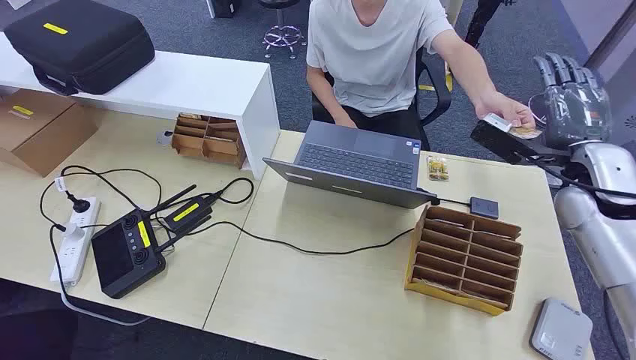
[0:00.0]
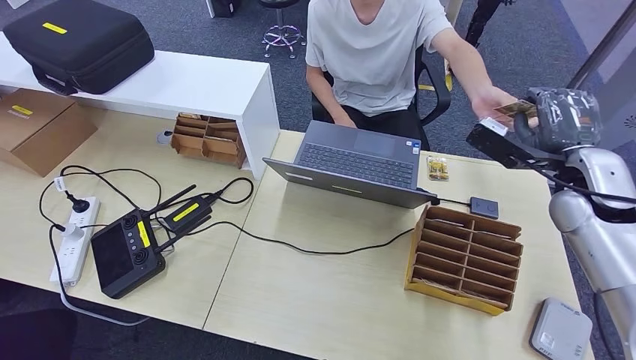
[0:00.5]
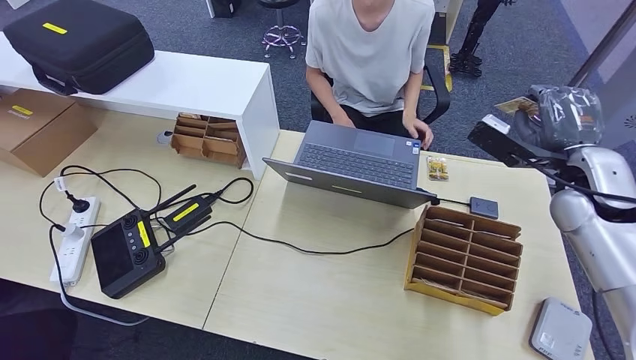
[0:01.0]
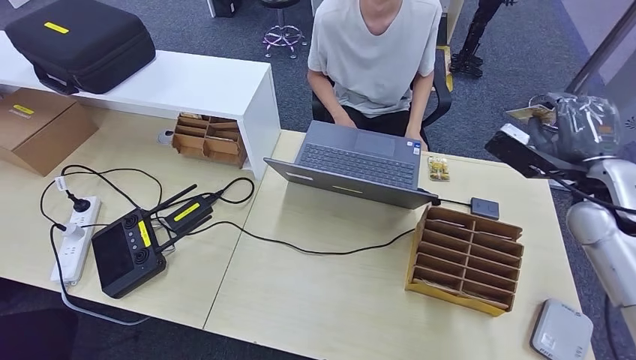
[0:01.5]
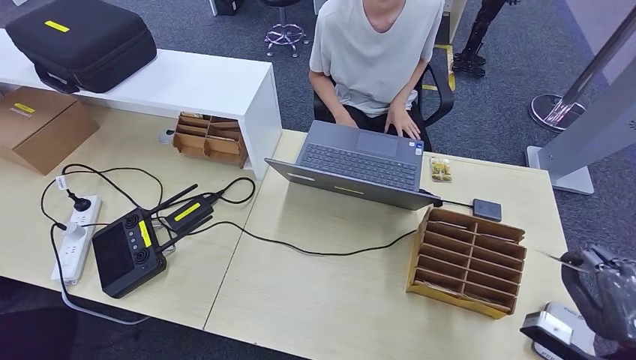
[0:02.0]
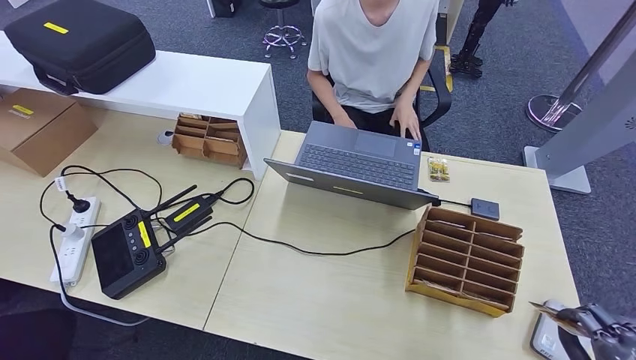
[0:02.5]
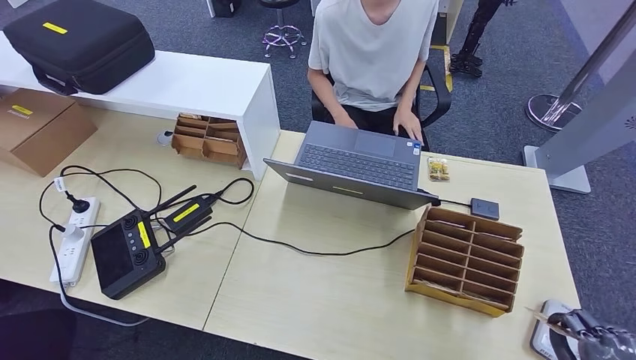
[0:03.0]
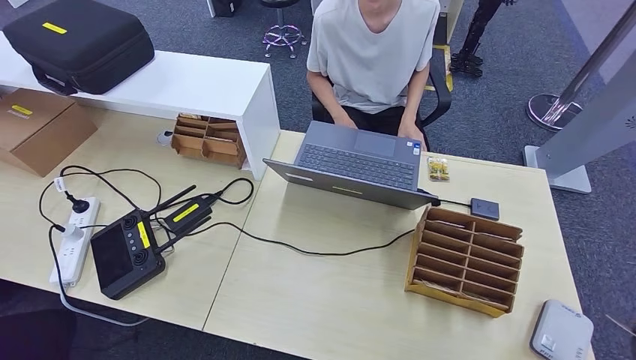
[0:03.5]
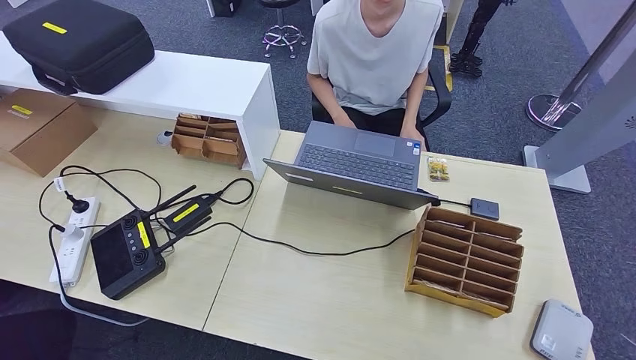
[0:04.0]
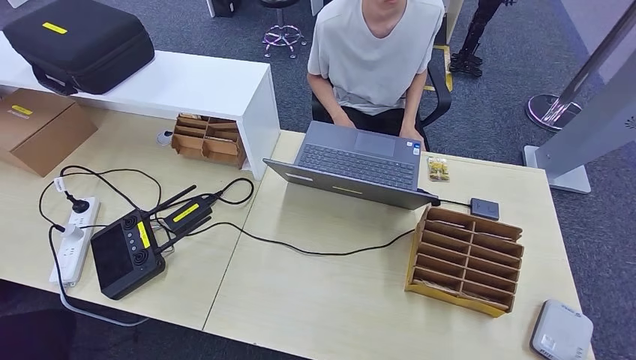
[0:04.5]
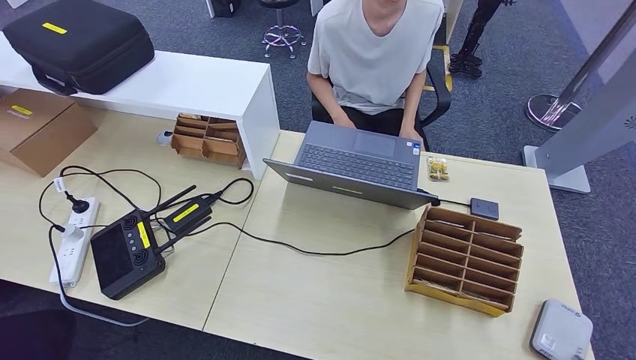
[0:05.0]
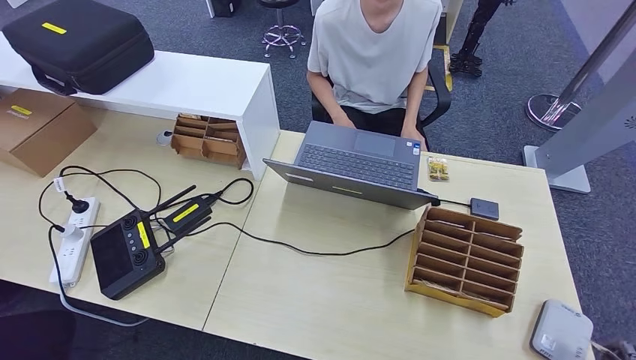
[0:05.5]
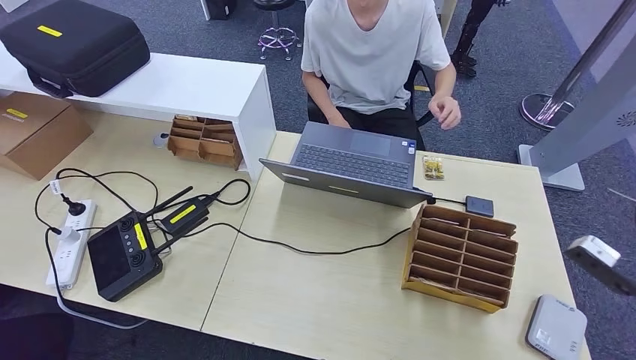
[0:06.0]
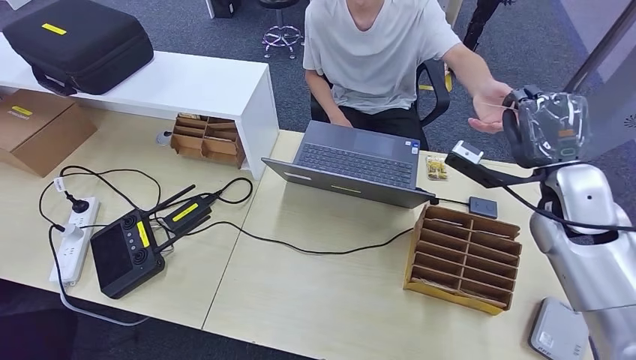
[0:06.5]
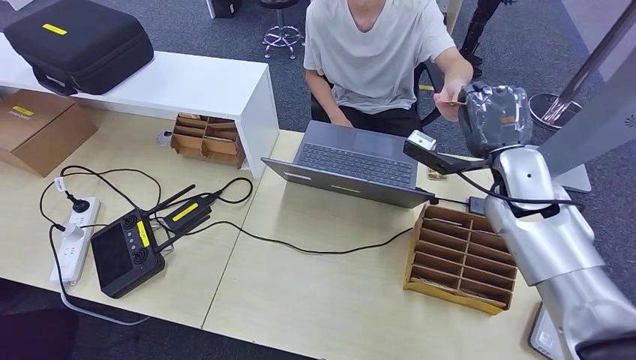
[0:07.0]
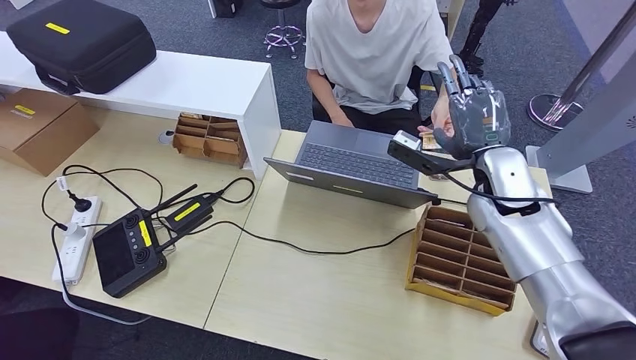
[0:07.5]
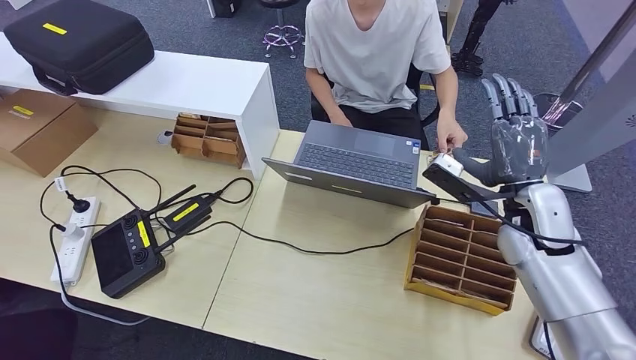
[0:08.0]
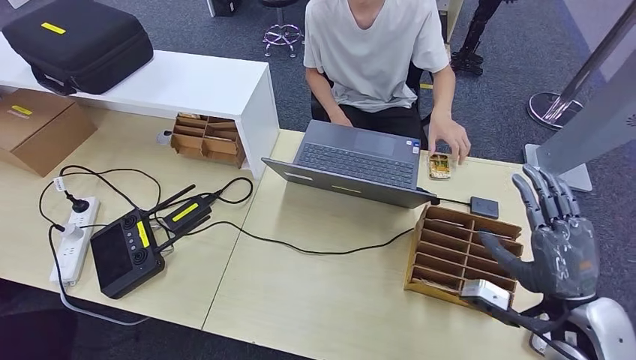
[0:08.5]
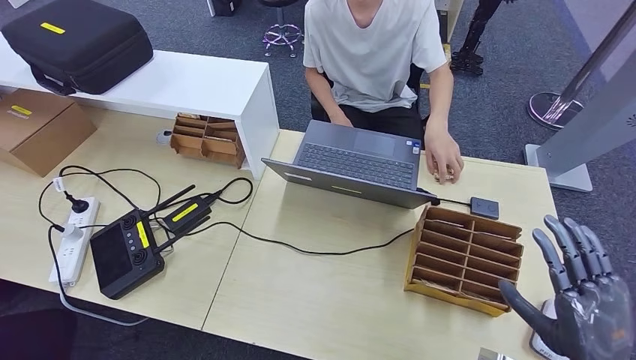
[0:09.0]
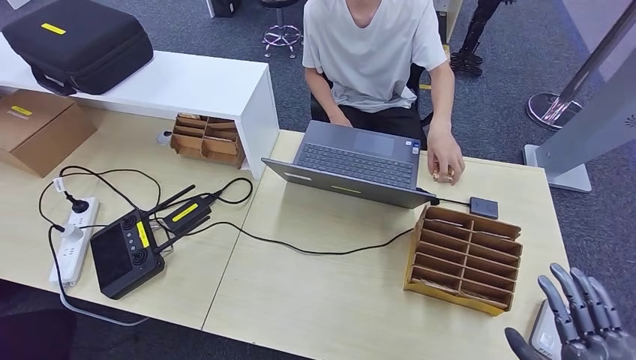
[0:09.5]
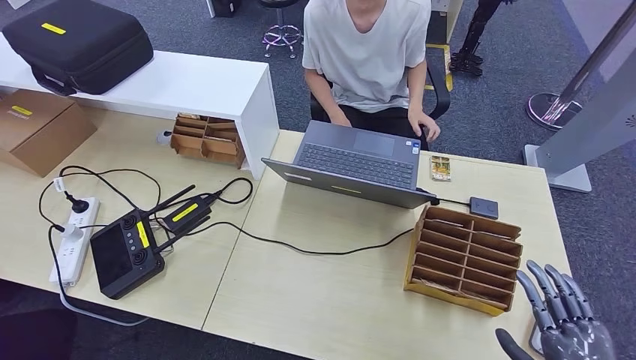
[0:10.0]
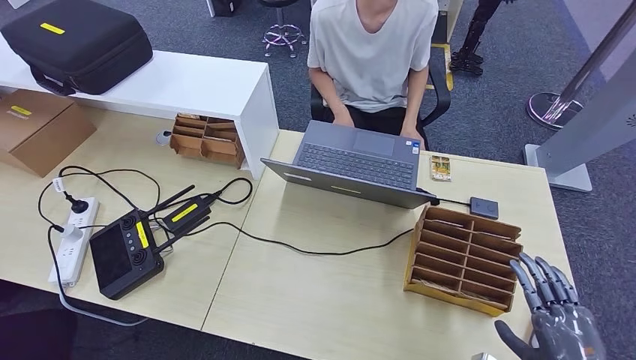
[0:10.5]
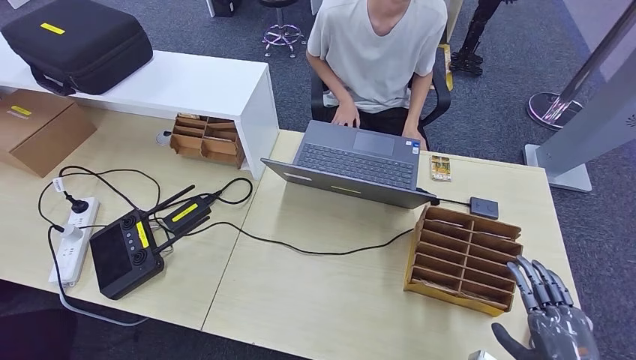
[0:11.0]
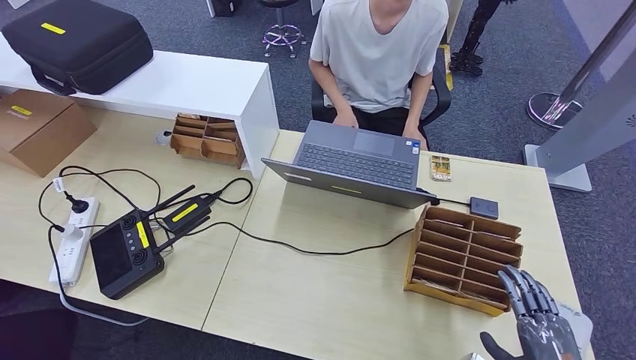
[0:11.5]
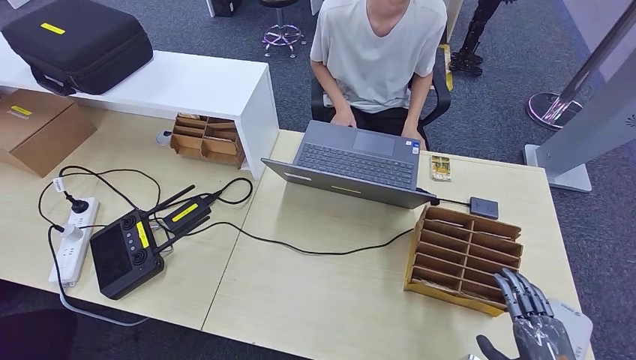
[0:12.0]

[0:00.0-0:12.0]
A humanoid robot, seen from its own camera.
Step, 0:00.0 to 0:01.0: Take the ID card from the person's hand.
Step, 0:01.5 to 0:06.0: Place the ID card on the card reader.
Step, 0:06.5 to 0:10.5: Hand the ID card to the person.
0:02.0 to 0:04.0: The right hand heads backward, downward and to the right, covering roughly 15 cm.
0:04.0 to 0:06.0: The right hand moves forward and upward, approximately 20 cm.
0:08.0 to 0:10.0: The right hand travels backward by about 25 cm.
0:10.0 to 0:12.0: The right hand shifts approximately 5 cm downward.

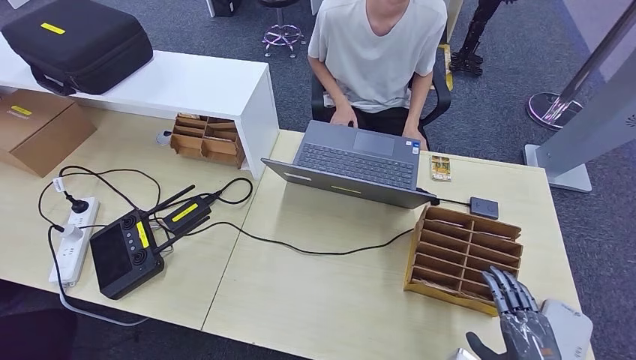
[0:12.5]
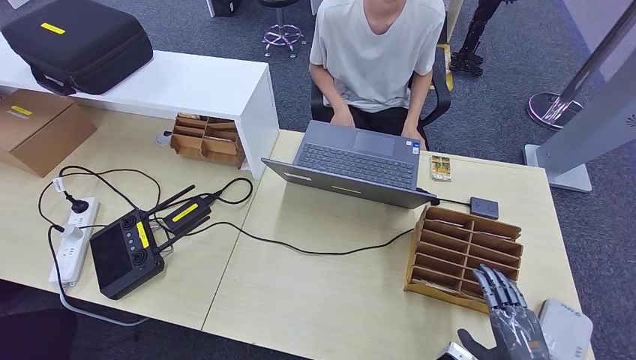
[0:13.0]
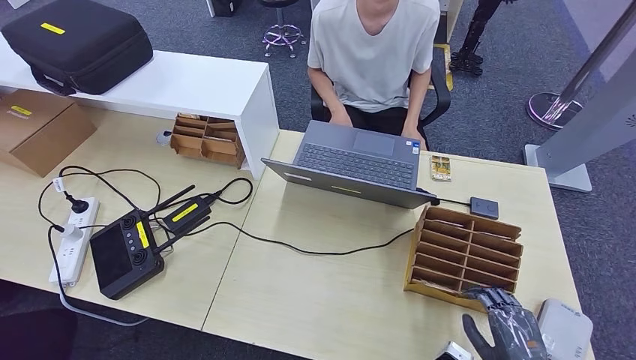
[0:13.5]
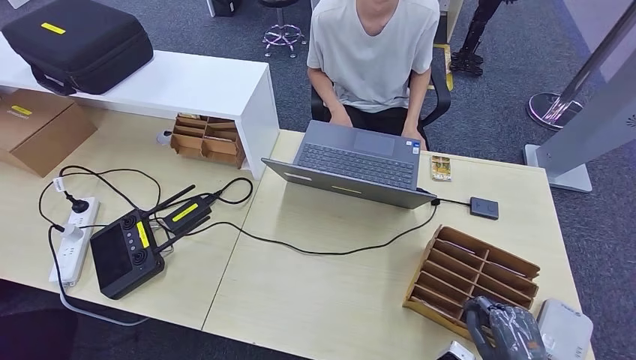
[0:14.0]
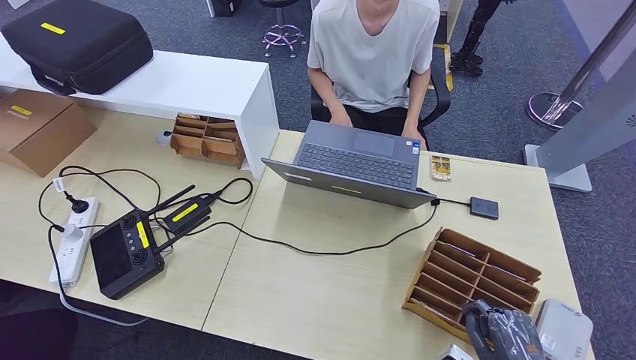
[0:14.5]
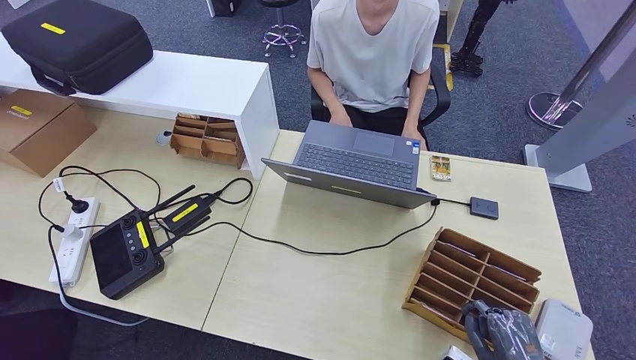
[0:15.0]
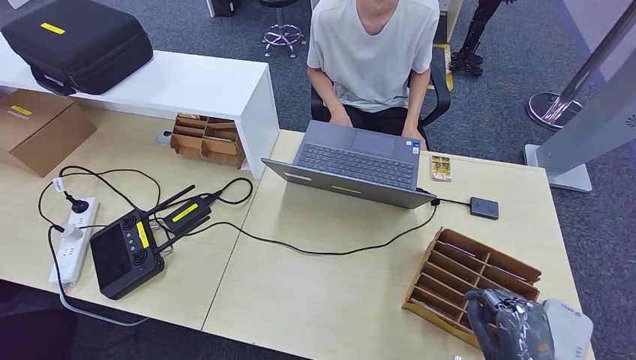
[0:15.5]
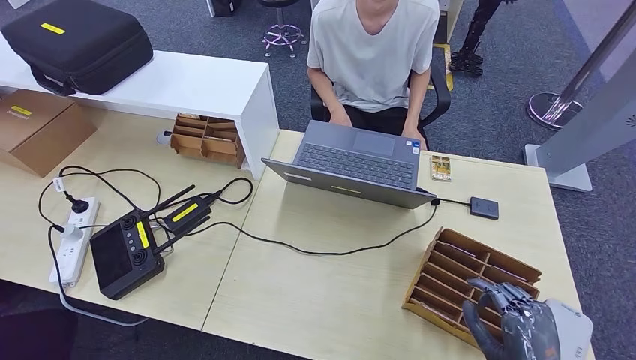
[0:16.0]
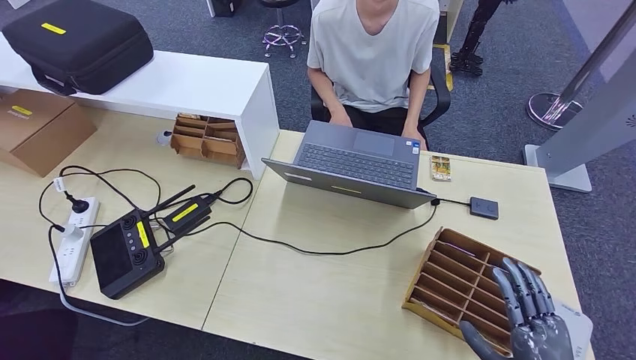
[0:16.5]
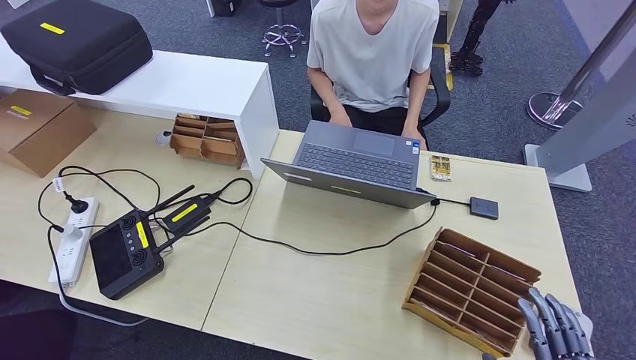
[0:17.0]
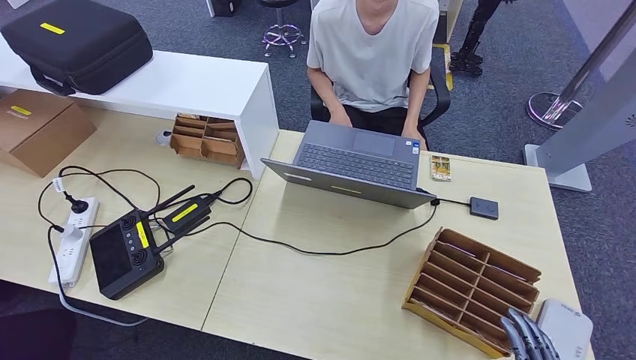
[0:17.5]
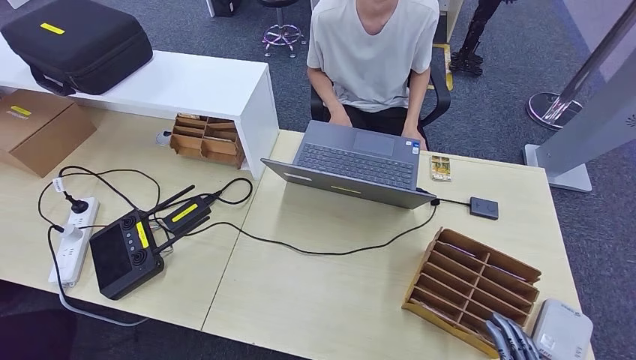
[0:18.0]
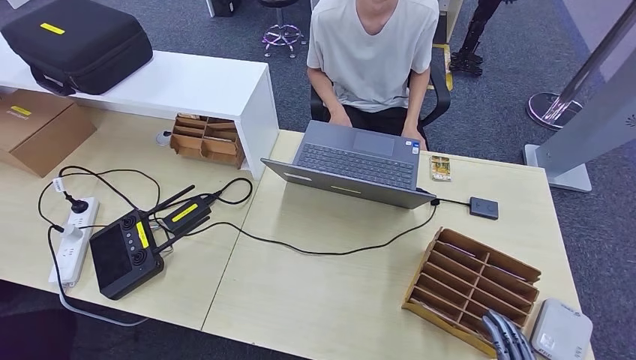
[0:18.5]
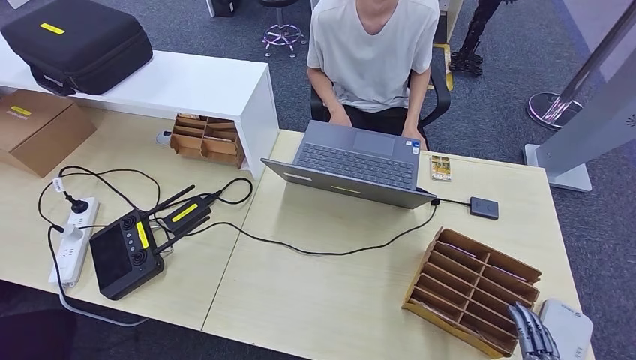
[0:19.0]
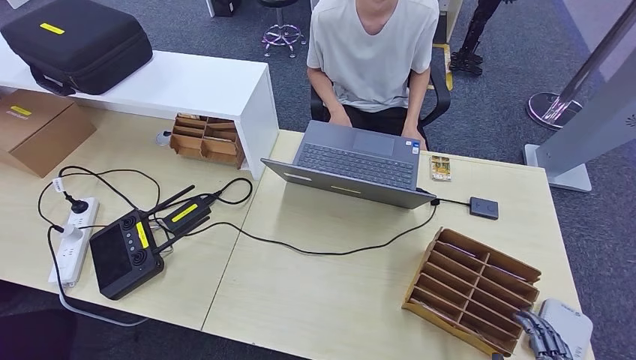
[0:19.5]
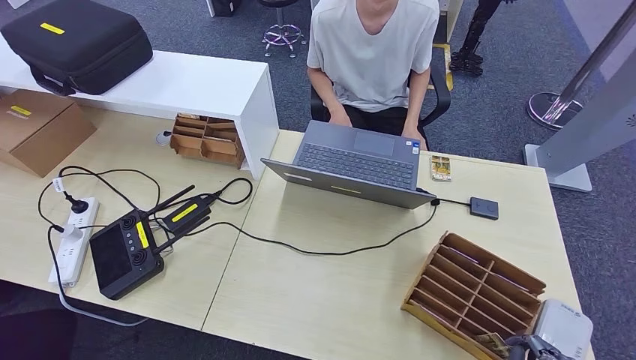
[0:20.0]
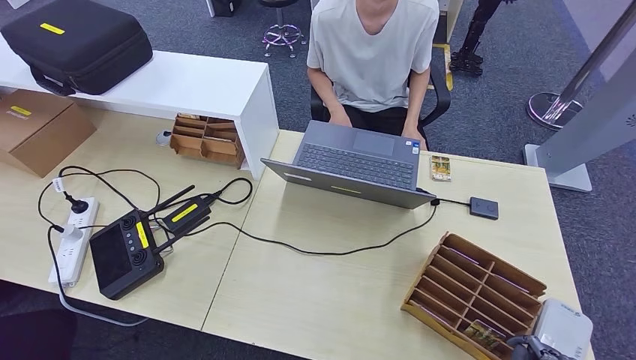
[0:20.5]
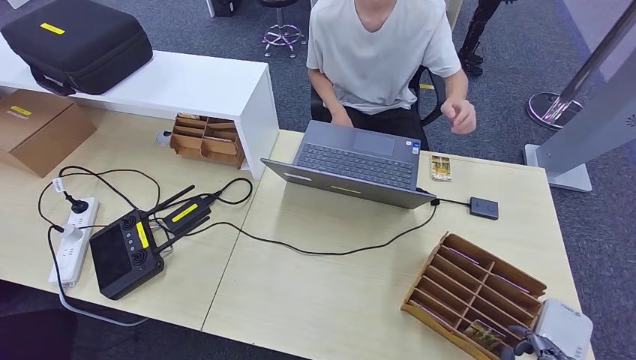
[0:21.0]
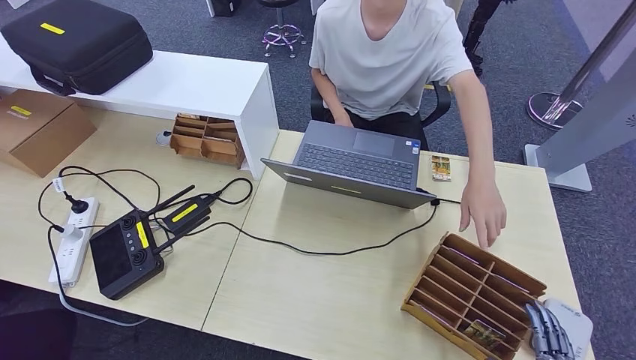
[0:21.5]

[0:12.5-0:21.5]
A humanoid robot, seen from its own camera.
Step, 0:12.5 to 0:17.0: Pick up the room key from the key card box.
Step, 0:17.5 to 0:21.5: Hand the room key to the person.
0:12.5 to 0:14.5: There are only small adjustments of the hands.
0:14.5 to 0:17.0: The right hand shifts approximately 10 cm backward and upward.
0:17.0 to 0:19.5: The right hand shifts some 10 cm downward.
0:19.5 to 0:21.5: Both hands stay put.
